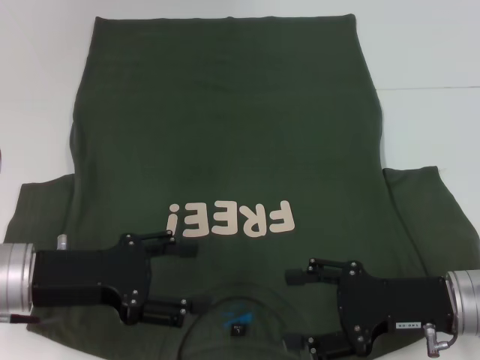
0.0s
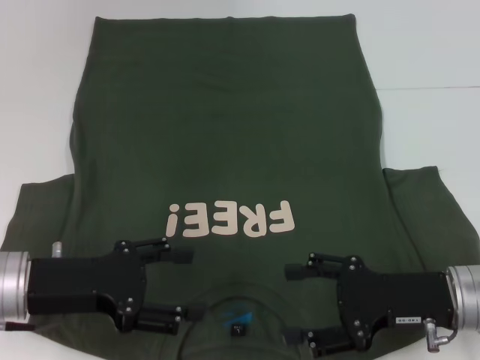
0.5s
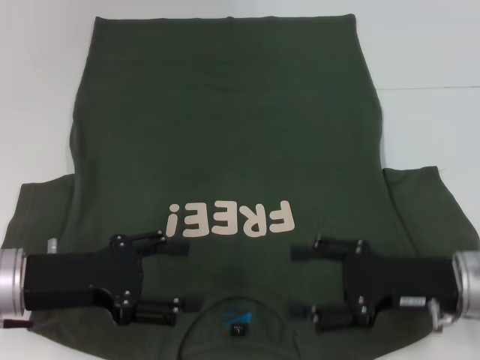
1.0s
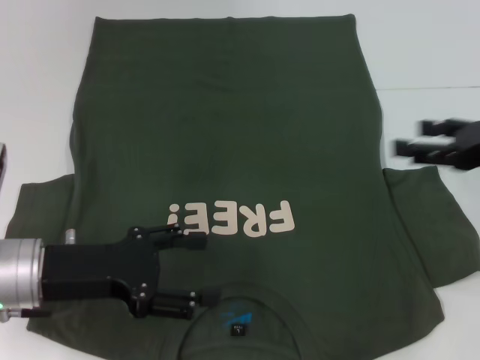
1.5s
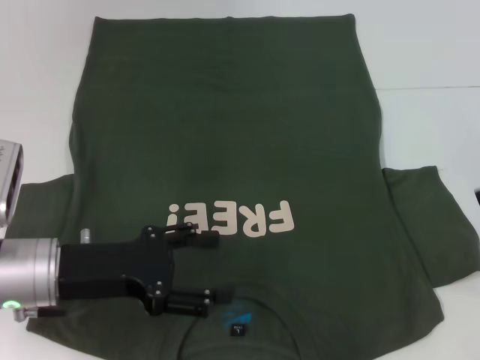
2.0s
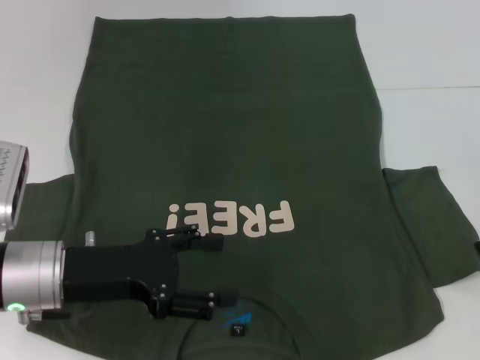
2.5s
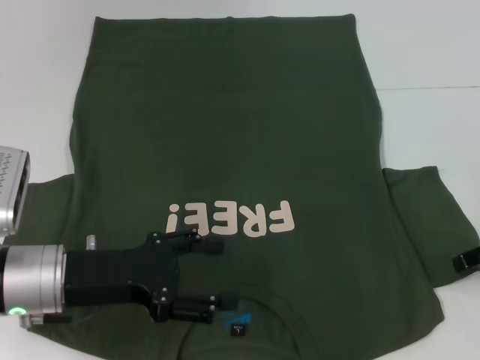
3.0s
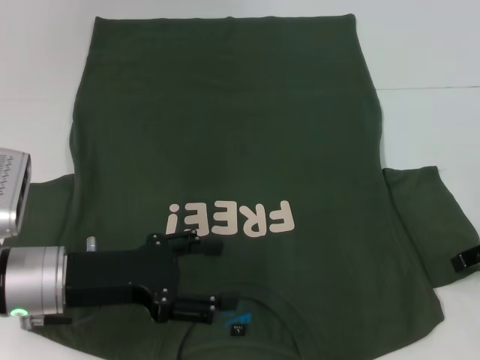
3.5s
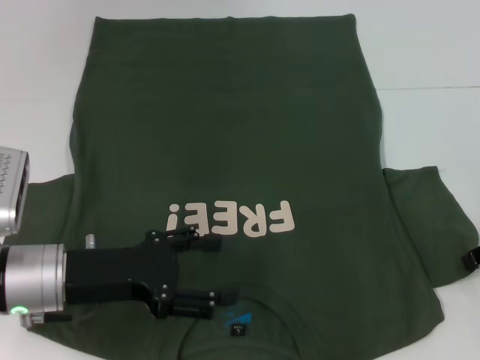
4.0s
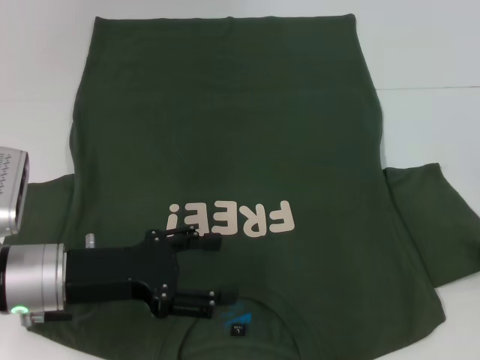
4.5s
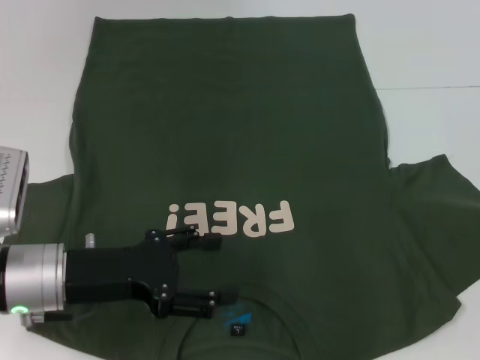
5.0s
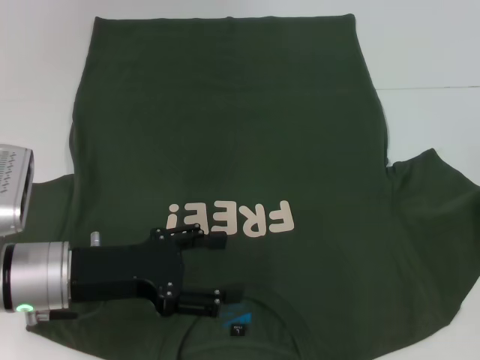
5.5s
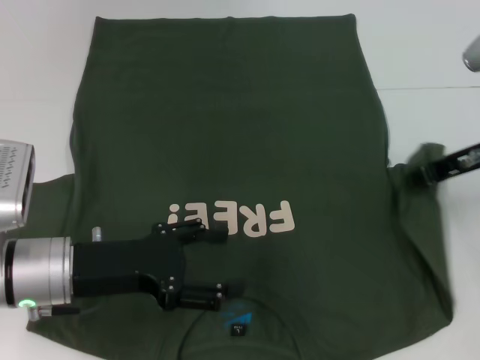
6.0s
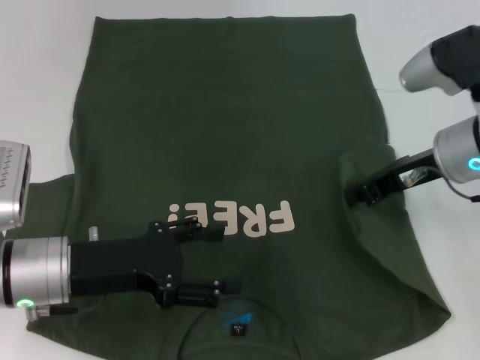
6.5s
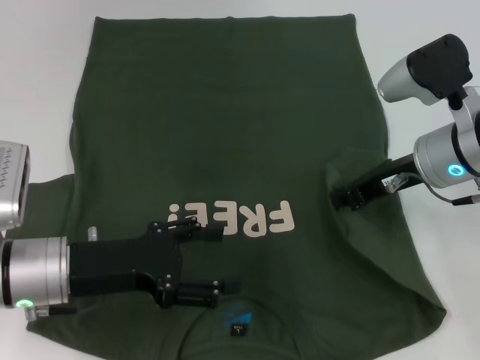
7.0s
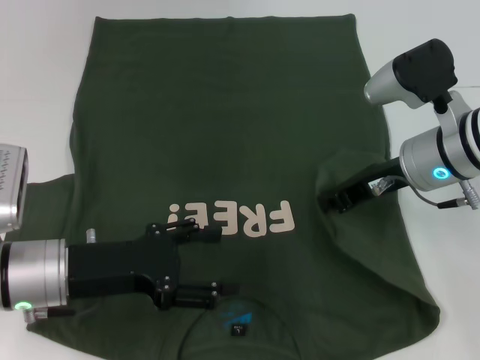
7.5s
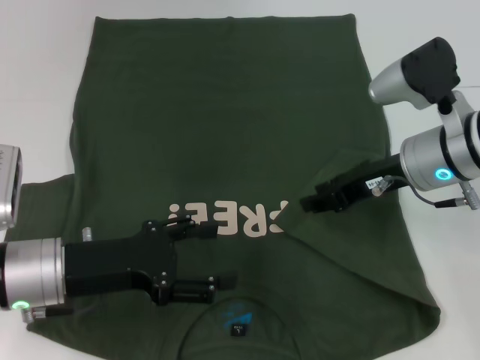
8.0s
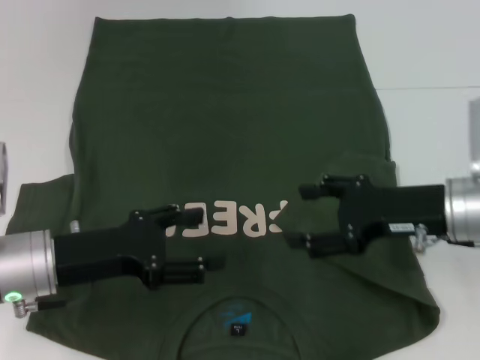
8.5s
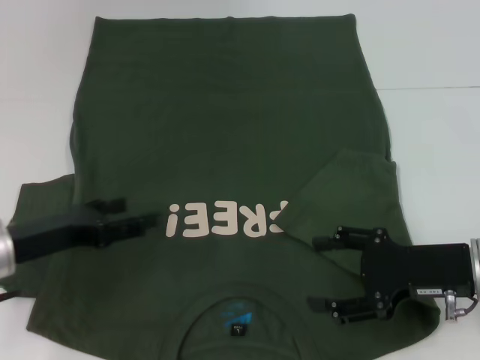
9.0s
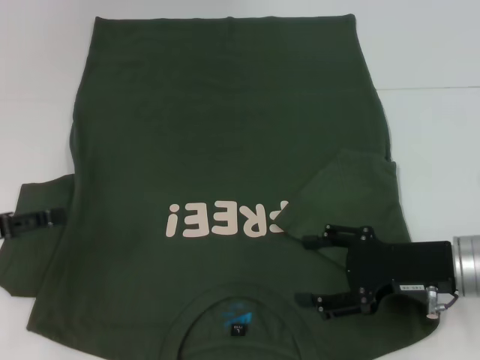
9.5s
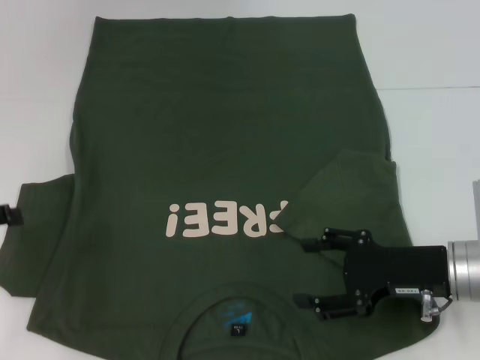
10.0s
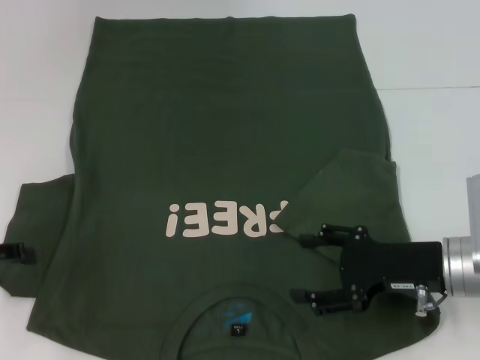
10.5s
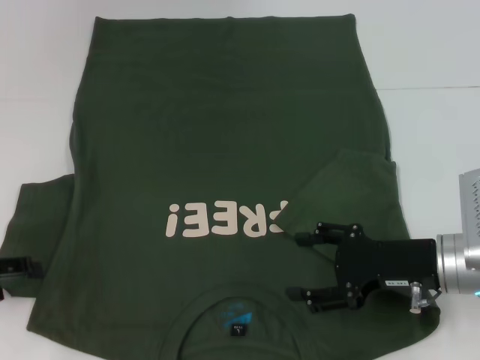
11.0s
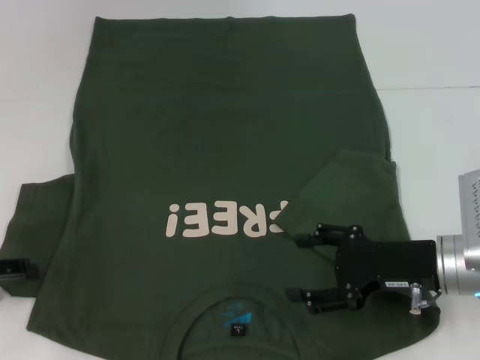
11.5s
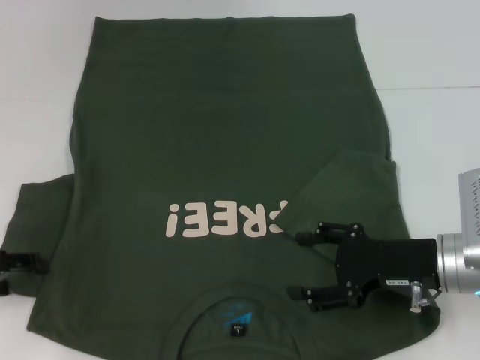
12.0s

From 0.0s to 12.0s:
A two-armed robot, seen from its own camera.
Step, from 0.0s to 8.0s: Fold the bottom right sleeve with your right hand.
From 0.0s to 2.0s: The right gripper shifts approximately 20 cm upward and to the right.
From 2.0s to 4.0s: The right gripper goes about 10 cm downward, and closes up.
From 4.0s to 6.0s: The right gripper goes about 5 cm to the left, and closes its fingers.
From 6.0s to 8.0s: The right gripper goes about 5 cm to the left.
From 8.0s to 10.0s: The left gripper is displaced to the left and upward by approximately 15 cm, while the right gripper heads backward and downward, covering about 10 cm, and opens up.
From 10.0s to 12.0s: The grippers move only a little.

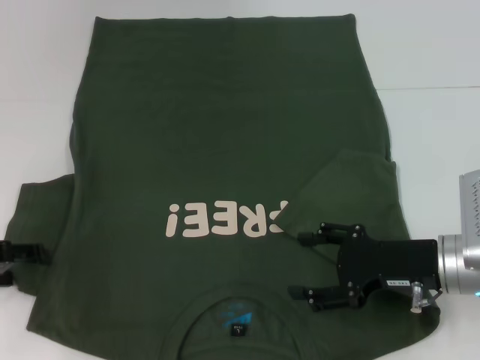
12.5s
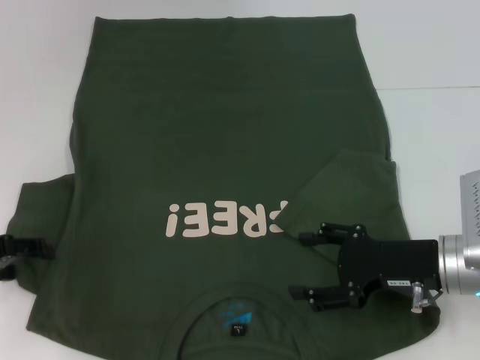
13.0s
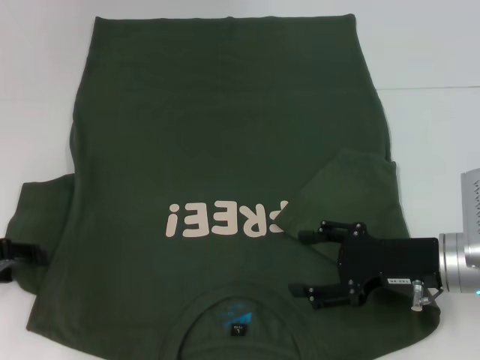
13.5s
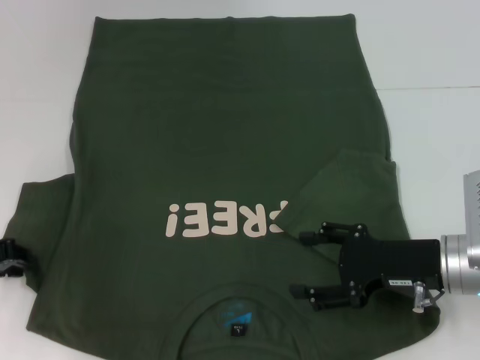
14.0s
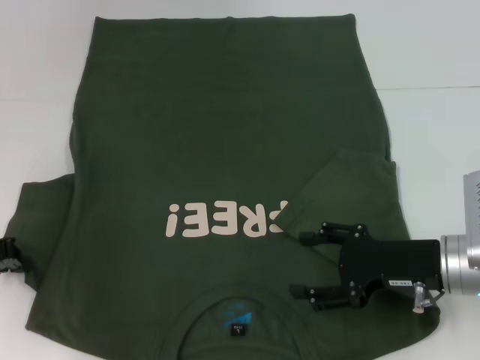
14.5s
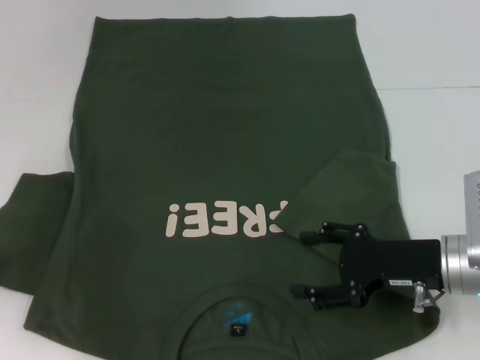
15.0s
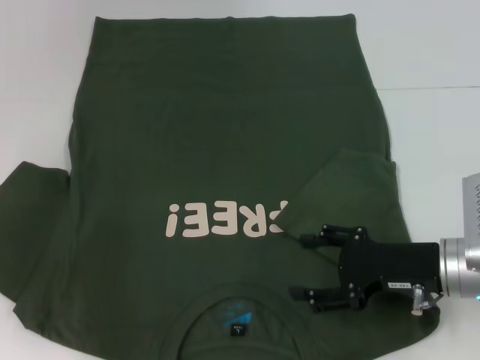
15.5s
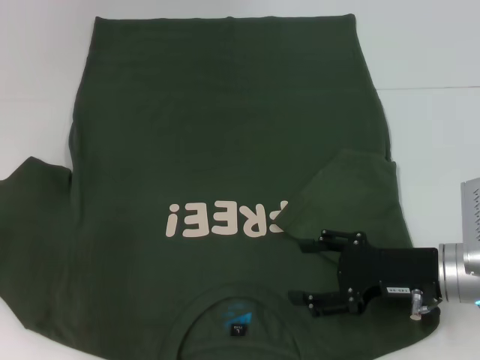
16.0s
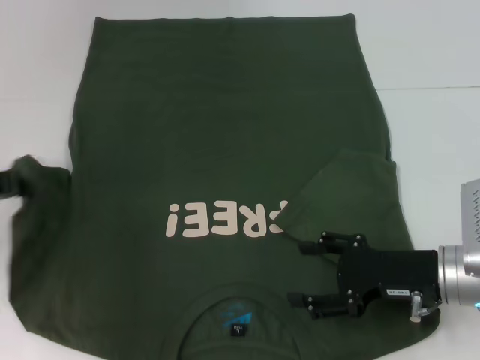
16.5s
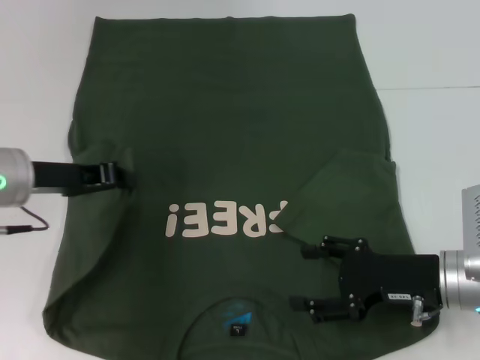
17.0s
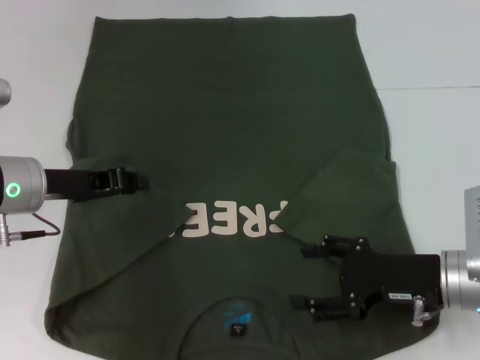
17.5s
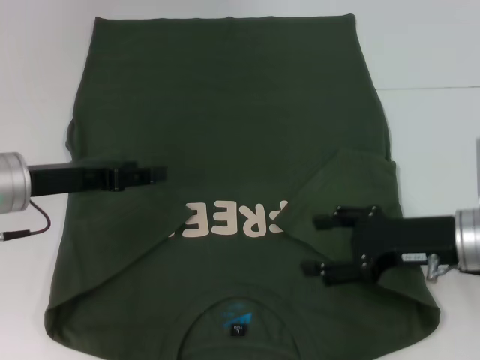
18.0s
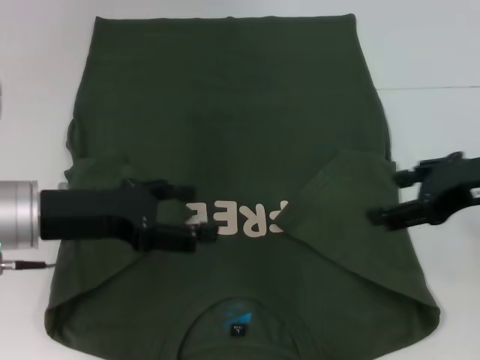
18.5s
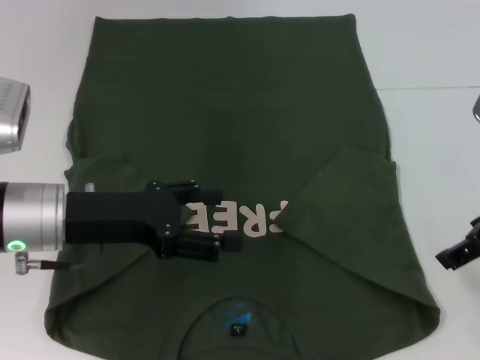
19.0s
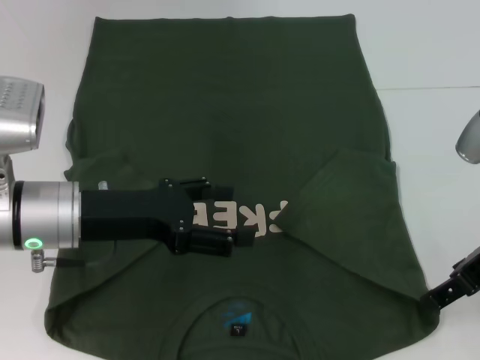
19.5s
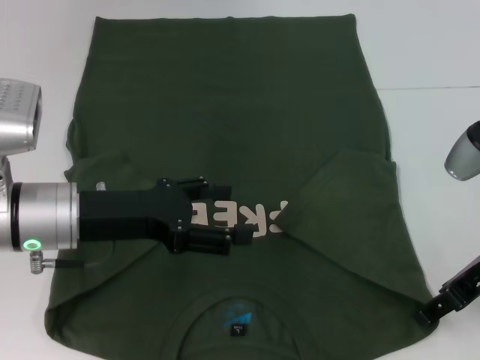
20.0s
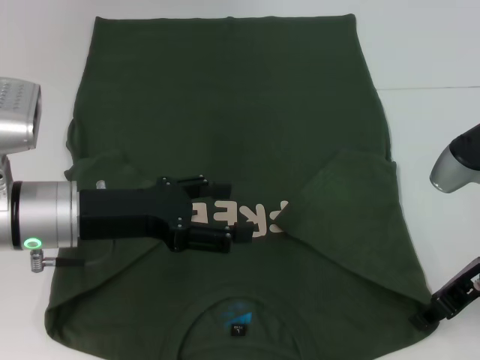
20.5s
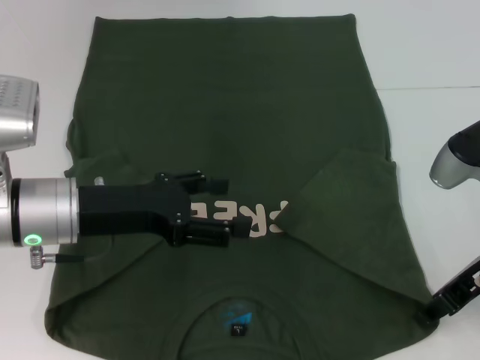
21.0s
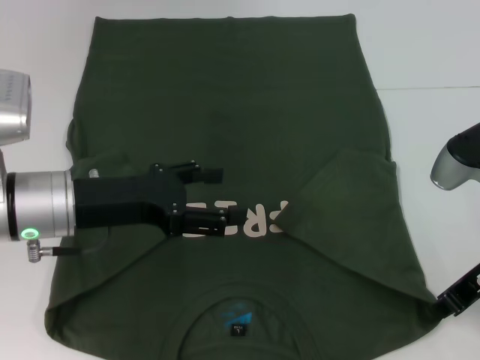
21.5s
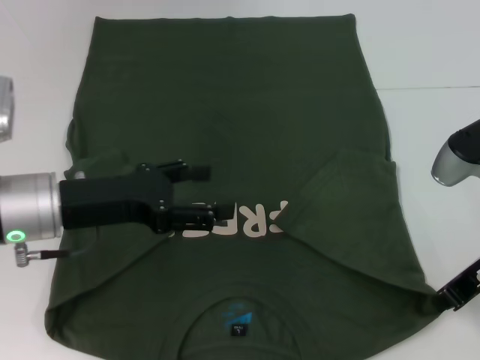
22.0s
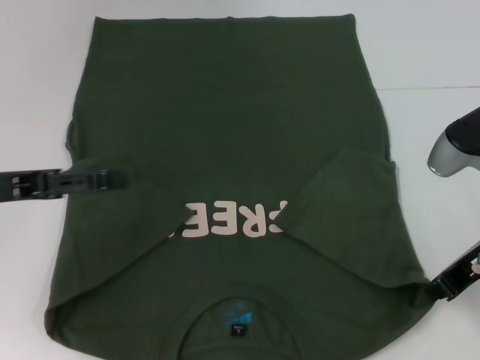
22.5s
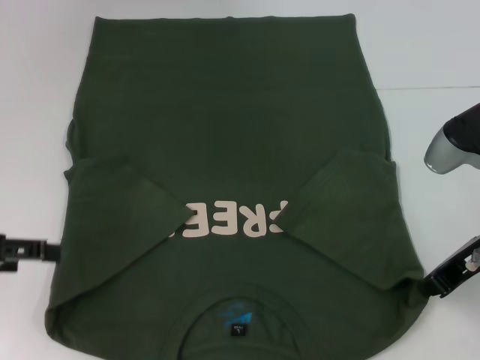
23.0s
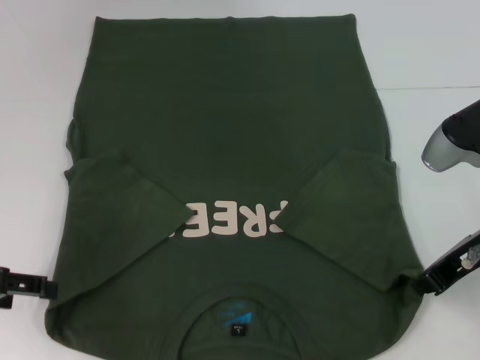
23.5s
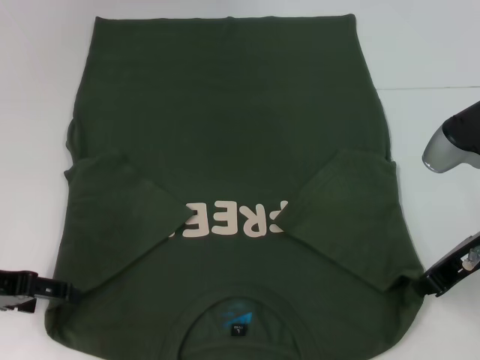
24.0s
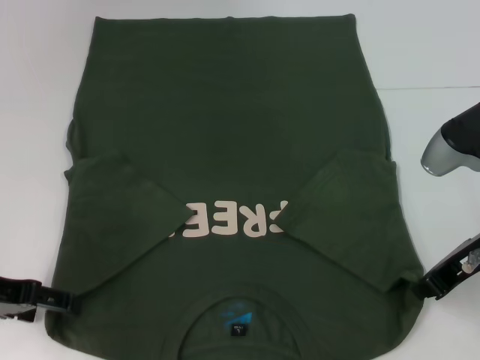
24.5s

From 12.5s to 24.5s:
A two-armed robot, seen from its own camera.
Step, from 12.5s to 17.5s: Fold the bottom left sleeve with your left hand.
Step, from 18.0s to 22.0s: Grab the bottom right corner with your right hand.
From 12.5s to 14.5s: The left gripper closes up.
From 16.5s to 18.5s: The right gripper shifts roughly 15 cm upward. Meanwhile the left gripper shifts some 10 cm to the right, and opens.
From 18.5s to 20.5s: The right gripper shifts some 5 cm downward.
From 20.5s to 22.5s: The right gripper closes up. The left gripper heads to the left and upward, covering approximately 10 cm.
From 22.5s to 24.5s: The left gripper heads downward, covering about 5 cm.

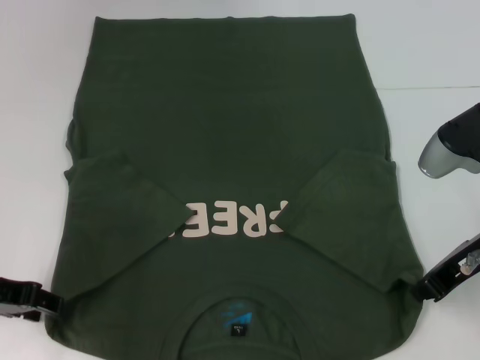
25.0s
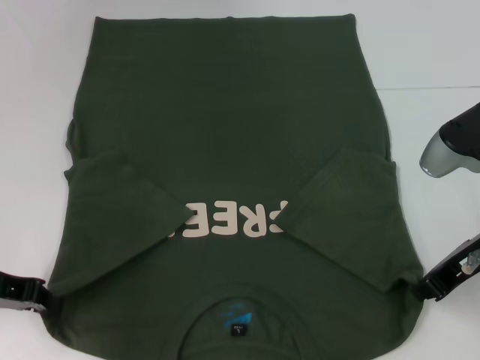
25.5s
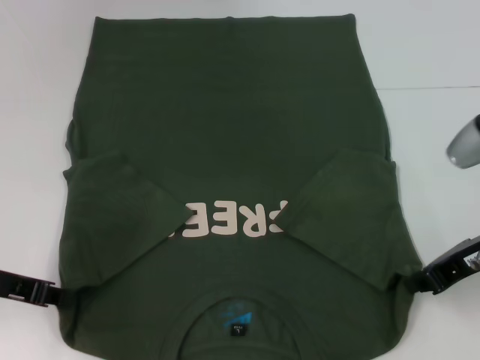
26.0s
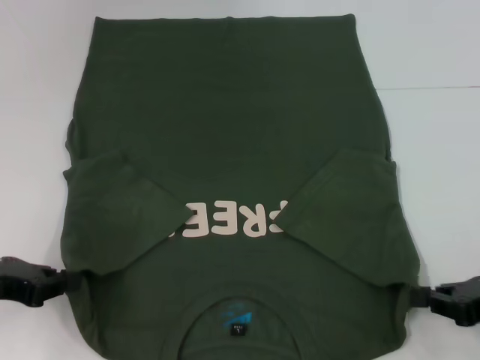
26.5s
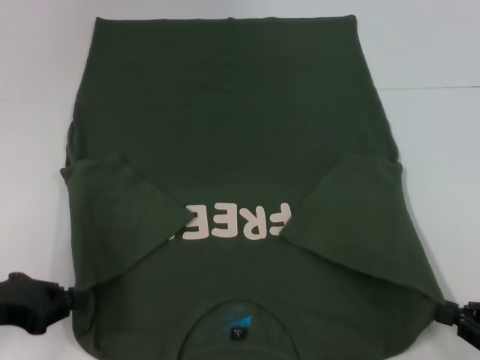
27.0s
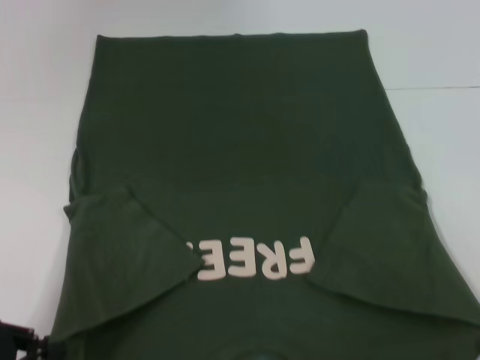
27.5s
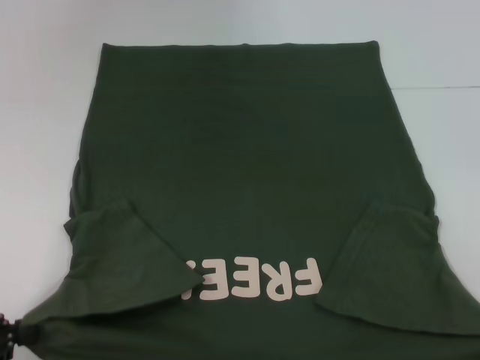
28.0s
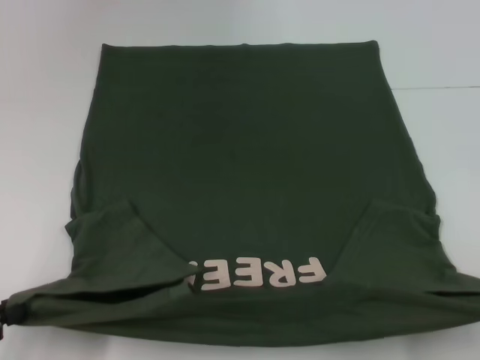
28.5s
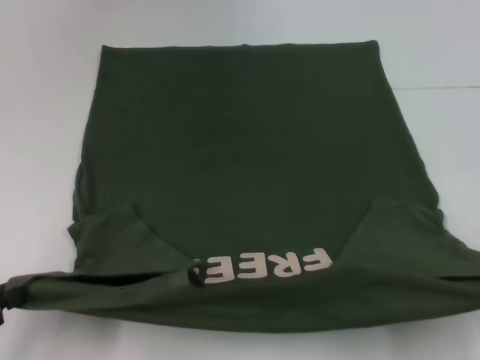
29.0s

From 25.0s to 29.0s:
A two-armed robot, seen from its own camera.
From 25.0s to 27.0s: The right gripper goes approximately 20 cm backward, to the right and downward; the left gripper changes place by roughly 5 cm, and closes up.
From 27.0s to 29.0s: Both grippers move backward, about 10 cm.
